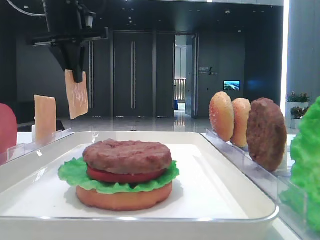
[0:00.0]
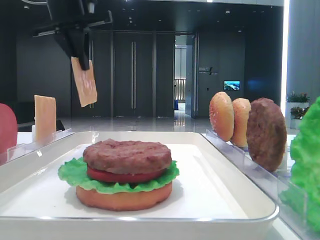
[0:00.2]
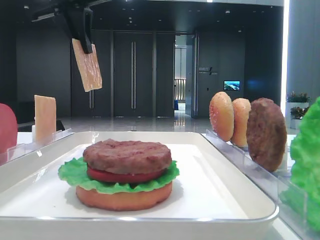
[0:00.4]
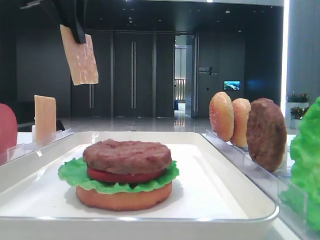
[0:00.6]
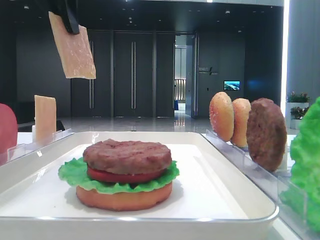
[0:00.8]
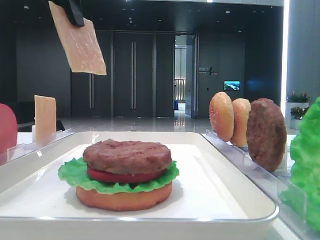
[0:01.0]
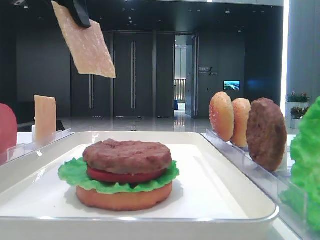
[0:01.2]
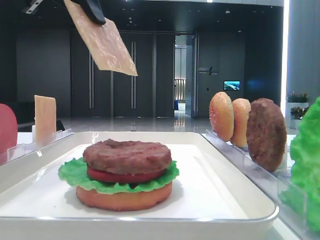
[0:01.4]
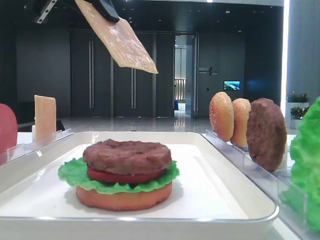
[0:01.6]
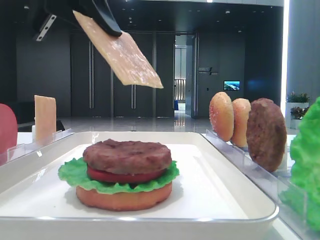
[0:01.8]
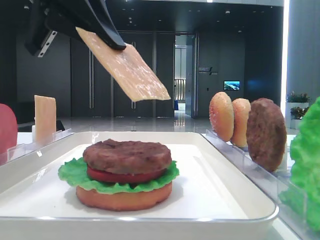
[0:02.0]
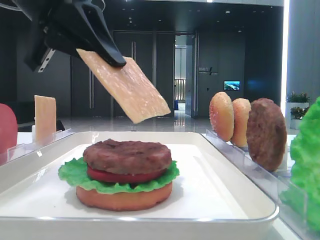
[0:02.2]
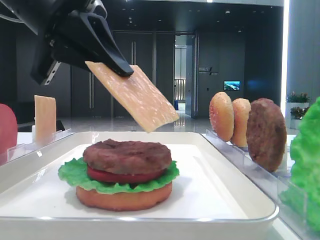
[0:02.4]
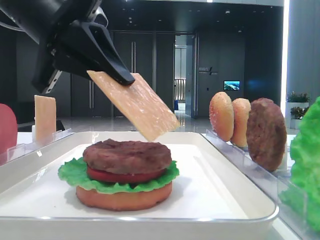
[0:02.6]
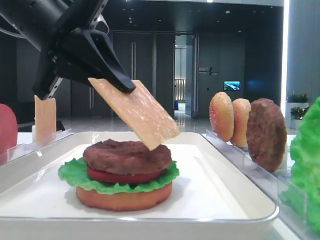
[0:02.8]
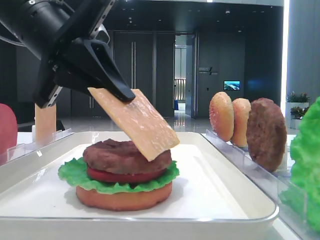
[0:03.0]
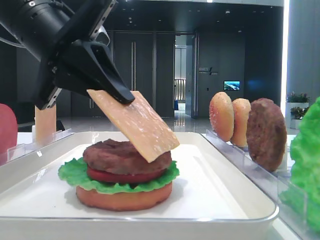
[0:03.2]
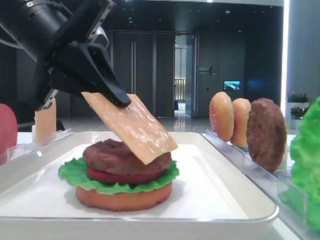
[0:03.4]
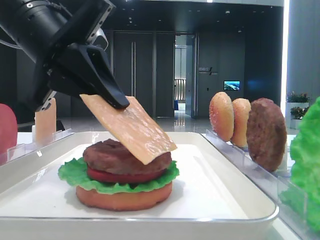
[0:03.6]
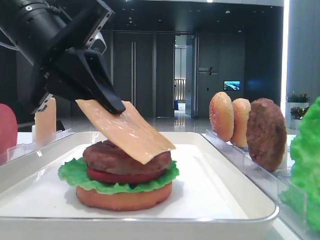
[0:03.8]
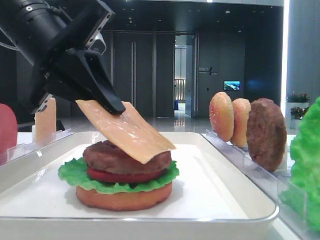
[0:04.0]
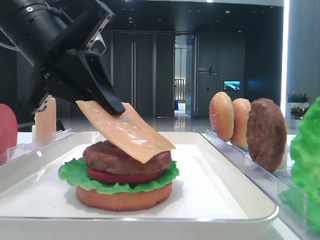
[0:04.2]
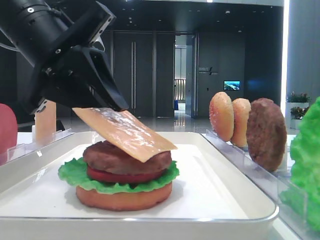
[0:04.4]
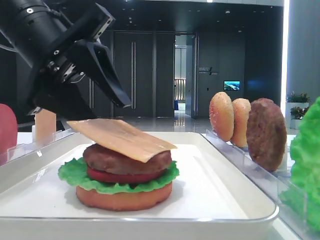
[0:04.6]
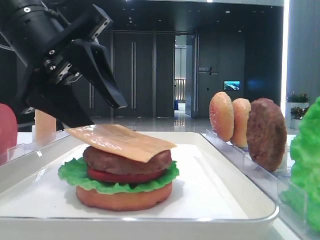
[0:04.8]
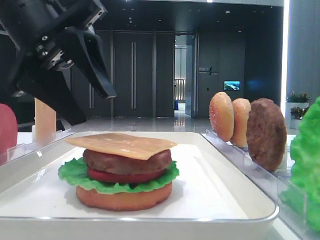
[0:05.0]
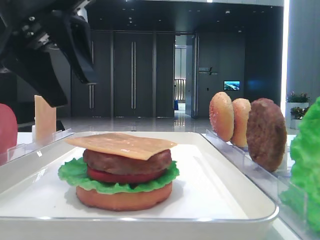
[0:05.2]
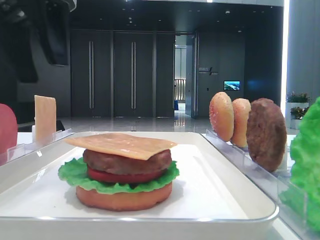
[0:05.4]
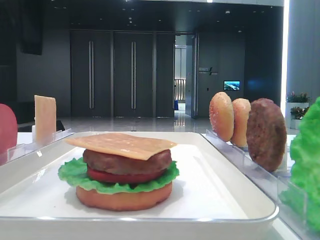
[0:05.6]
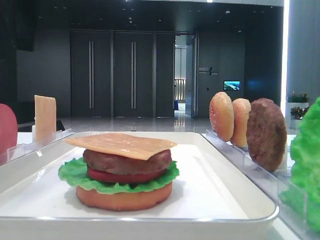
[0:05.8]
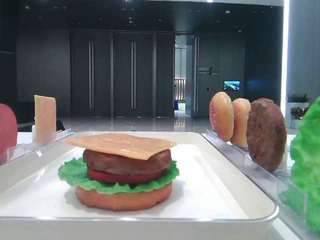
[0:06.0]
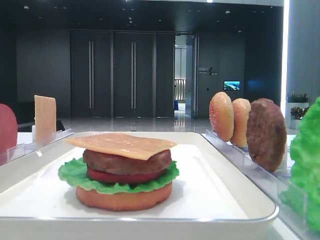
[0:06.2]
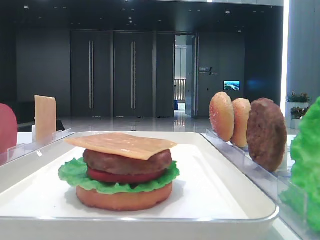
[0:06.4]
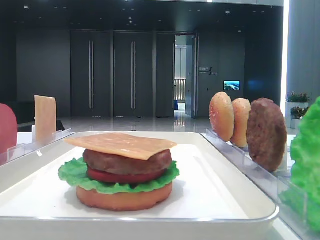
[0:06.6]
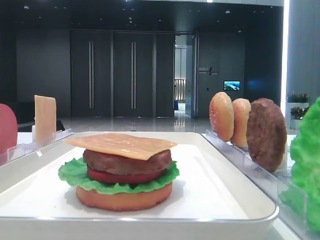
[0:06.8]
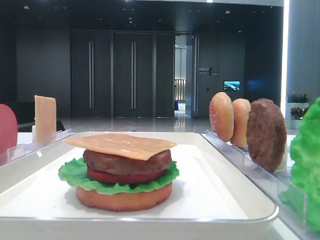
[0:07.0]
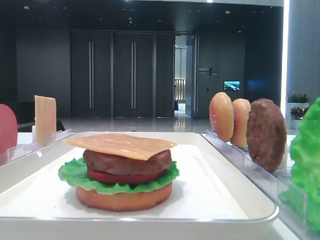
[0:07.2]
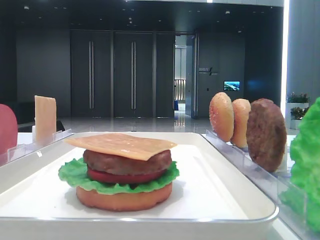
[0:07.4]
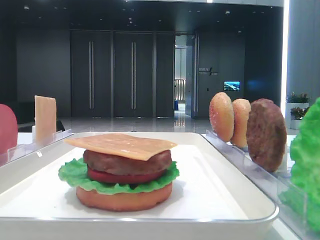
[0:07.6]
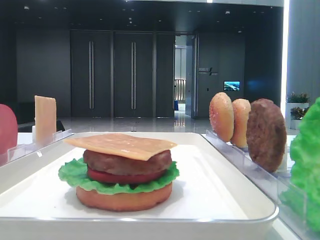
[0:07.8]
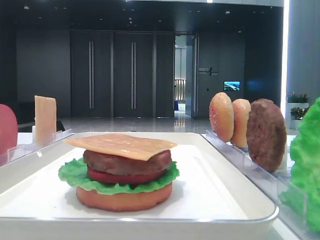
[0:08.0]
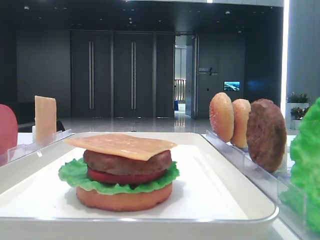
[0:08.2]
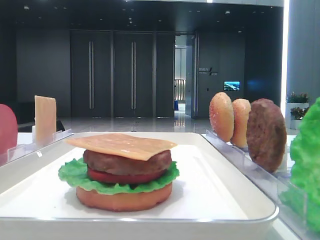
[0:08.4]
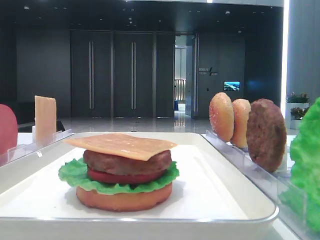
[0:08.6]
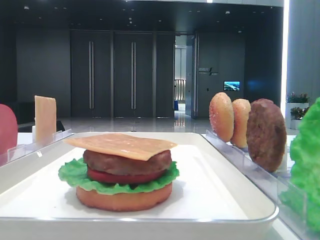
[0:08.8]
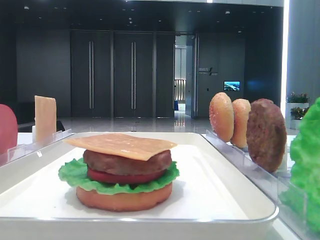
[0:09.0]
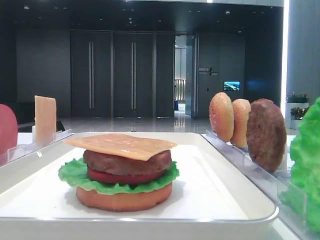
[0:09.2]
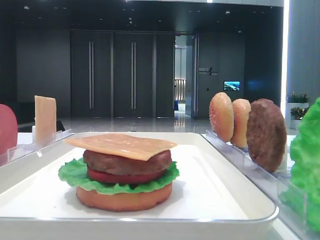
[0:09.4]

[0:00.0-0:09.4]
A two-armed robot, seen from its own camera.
Step, 0:00.0 to 0:04.8: Place the cheese slice on the patty with the left hand.
0:00.0 to 0:01.6: The left gripper is displaced backward by about 15 cm.
0:01.6 to 0:03.2: The left gripper travels downward by roughly 10 cm.
0:03.2 to 0:04.8: The left gripper opens its fingers.
0:04.8 to 0:06.2: The left gripper travels upward and to the left by roughly 20 cm.

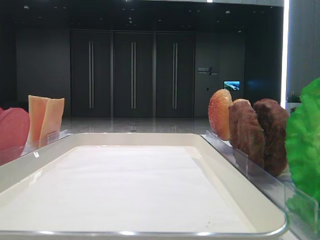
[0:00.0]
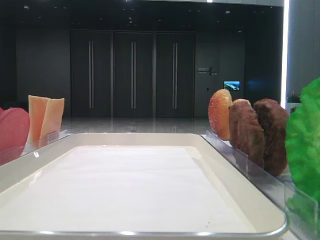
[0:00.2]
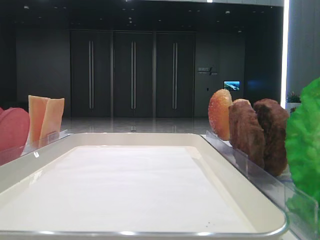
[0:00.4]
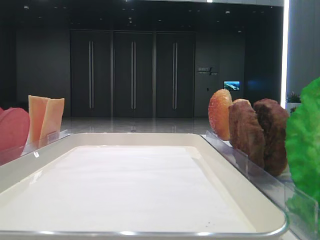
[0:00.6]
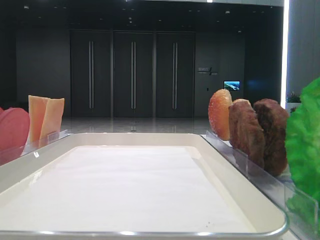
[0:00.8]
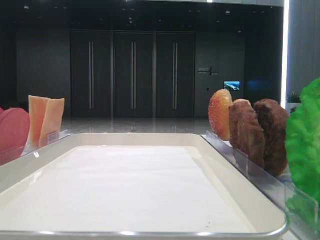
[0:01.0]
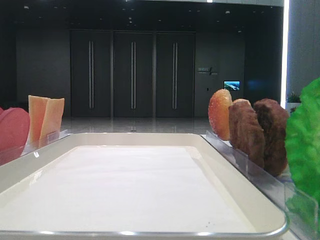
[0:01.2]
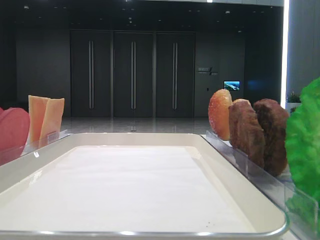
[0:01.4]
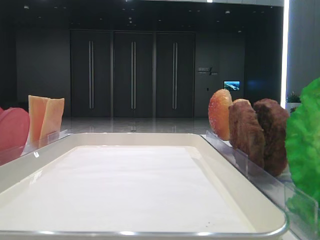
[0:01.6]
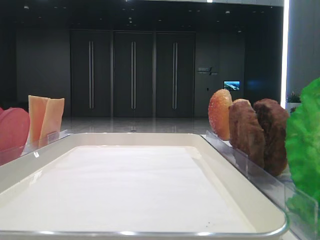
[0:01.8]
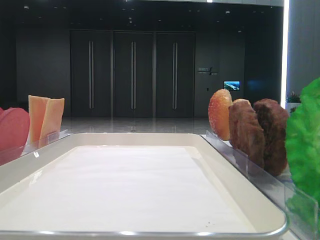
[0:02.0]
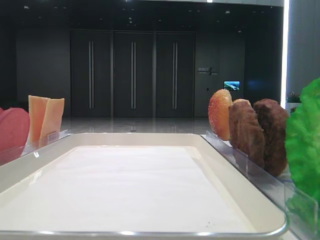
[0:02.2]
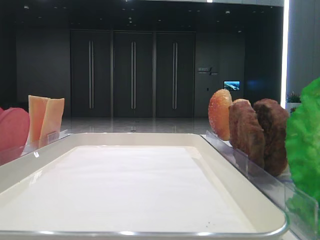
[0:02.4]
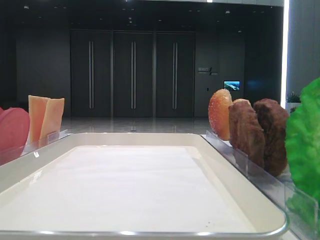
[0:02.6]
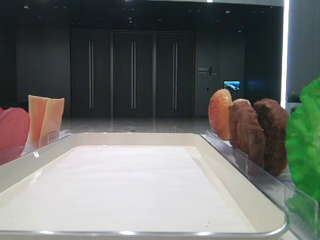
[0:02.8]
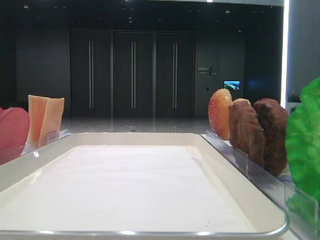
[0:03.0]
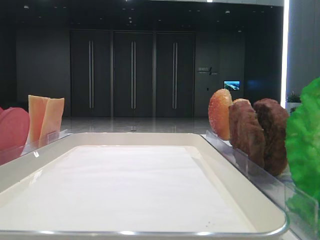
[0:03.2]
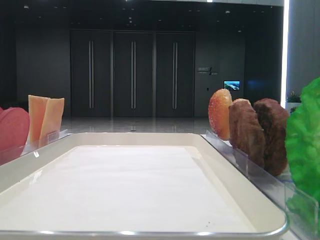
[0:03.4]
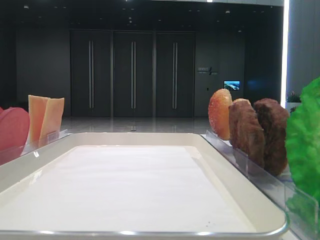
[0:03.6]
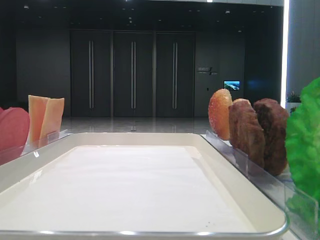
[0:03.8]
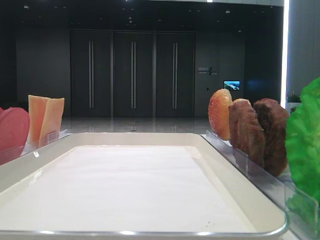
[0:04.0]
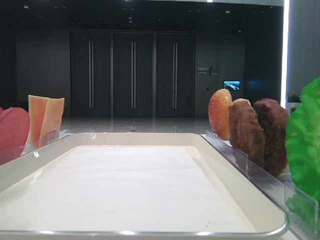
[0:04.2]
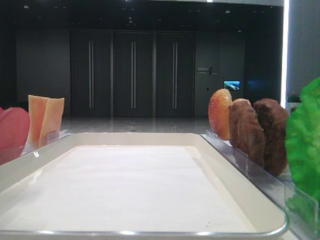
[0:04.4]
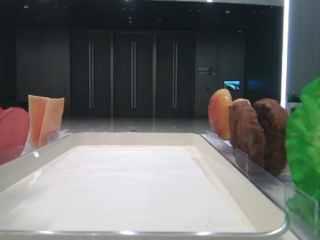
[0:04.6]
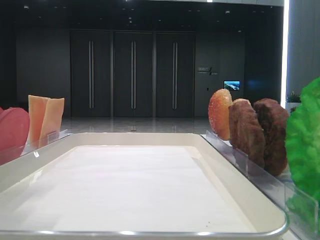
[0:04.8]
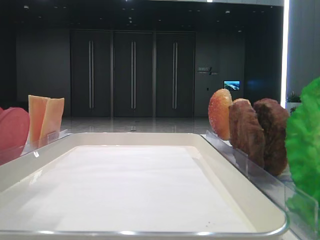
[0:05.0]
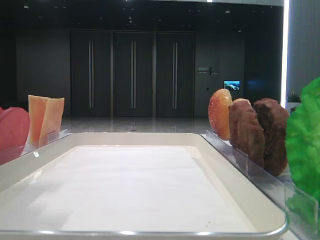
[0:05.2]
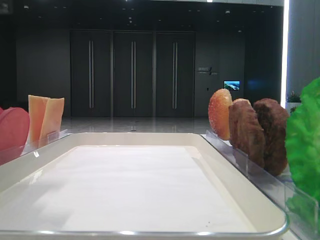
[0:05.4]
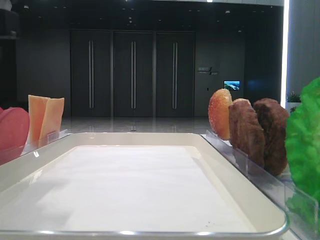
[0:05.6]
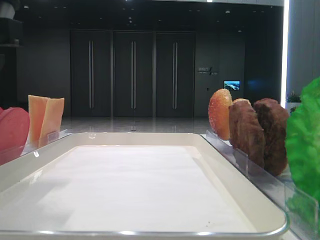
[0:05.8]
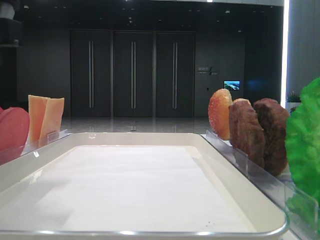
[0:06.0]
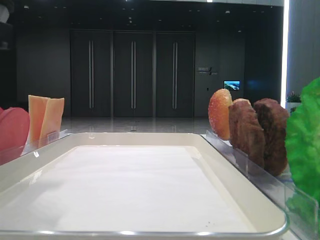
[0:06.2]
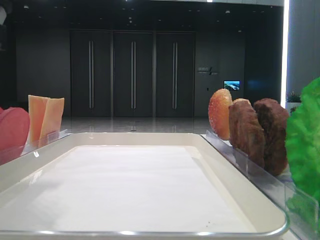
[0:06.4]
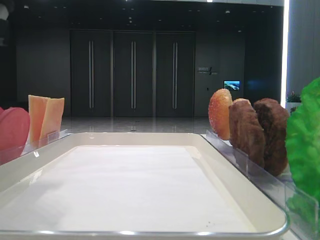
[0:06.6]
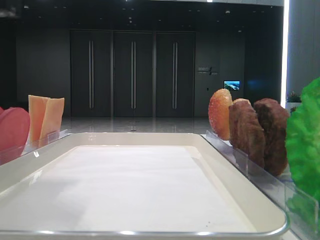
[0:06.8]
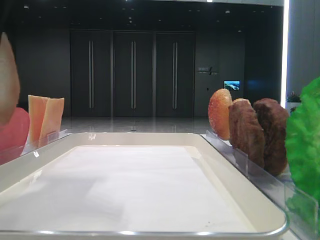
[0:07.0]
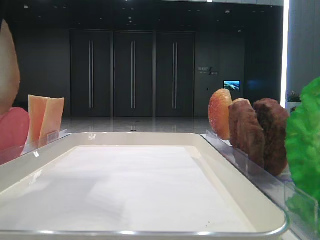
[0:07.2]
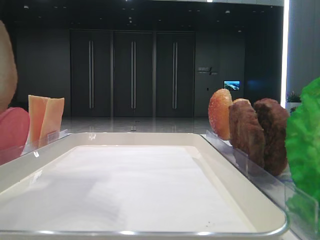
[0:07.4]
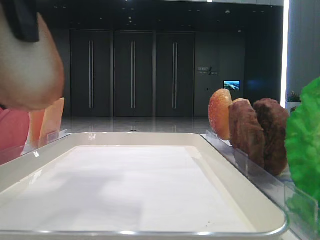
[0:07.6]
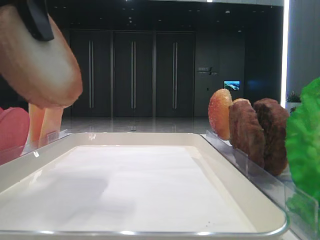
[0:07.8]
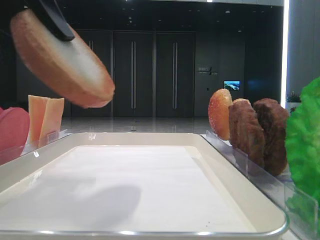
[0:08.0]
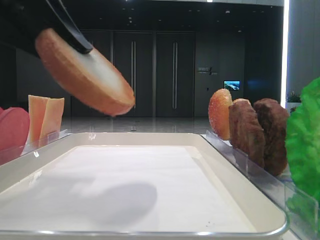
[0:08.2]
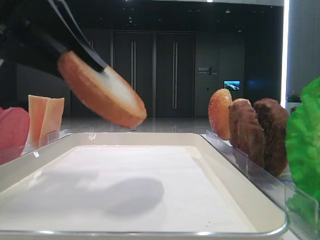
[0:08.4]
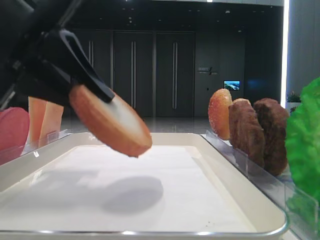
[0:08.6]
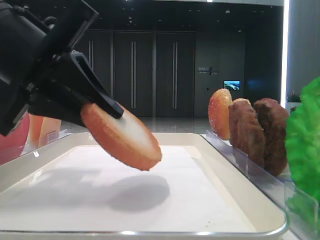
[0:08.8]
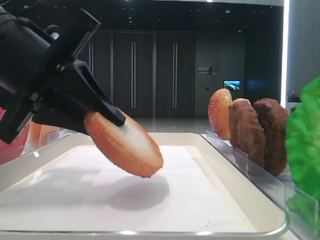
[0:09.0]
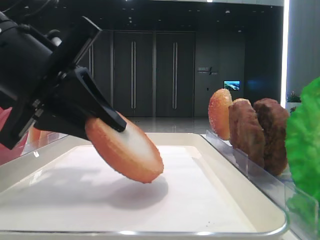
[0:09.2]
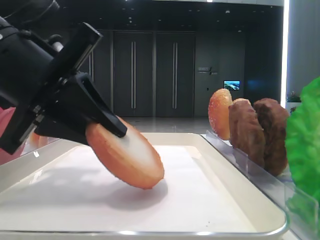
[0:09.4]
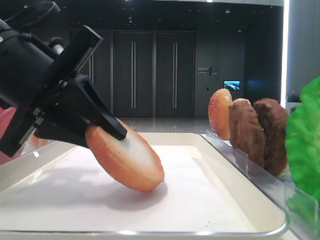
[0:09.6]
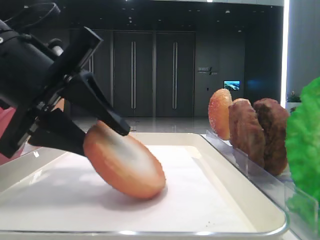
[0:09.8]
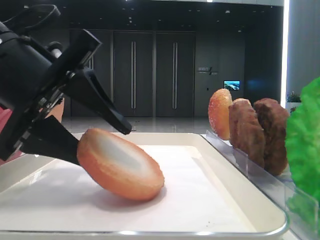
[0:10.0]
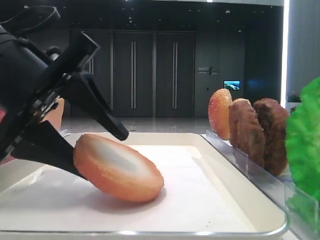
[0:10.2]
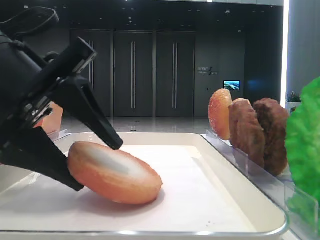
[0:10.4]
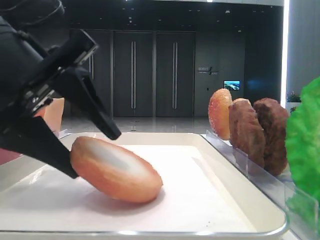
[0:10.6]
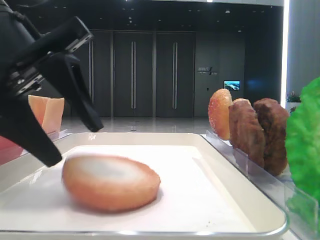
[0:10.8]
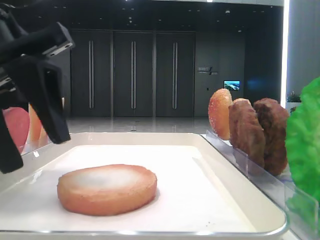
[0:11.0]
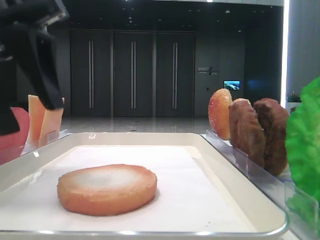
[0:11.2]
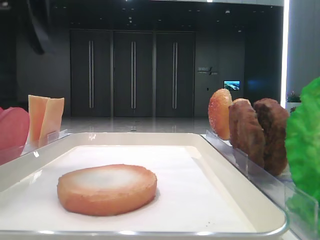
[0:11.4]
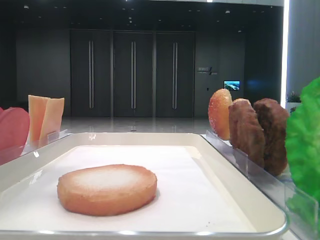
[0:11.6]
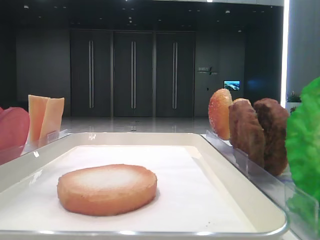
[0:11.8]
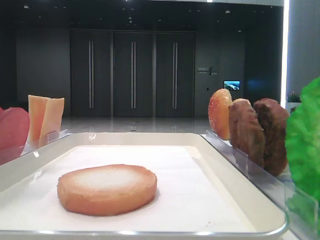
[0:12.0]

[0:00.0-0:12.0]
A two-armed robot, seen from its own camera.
Step, 0:06.6 to 0:10.6: Place the bread on the tray with the left hand.
0:03.0 to 0:04.4: The left gripper moves to the right, some 10 cm.
0:04.4 to 0:06.0: The left gripper is displaced downward by approximately 5 cm.
0:06.0 to 0:07.6: The left gripper moves upward, some 10 cm, and closes.
0:07.6 to 0:09.0: The left gripper moves downward, approximately 15 cm.
0:09.0 to 0:10.4: The left gripper opens.
0:10.4 to 0:12.0: The left gripper heads upward and to the left, covering approximately 20 cm.
